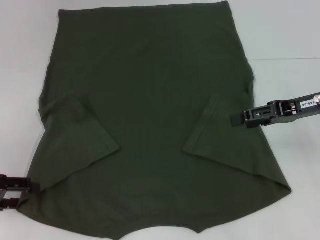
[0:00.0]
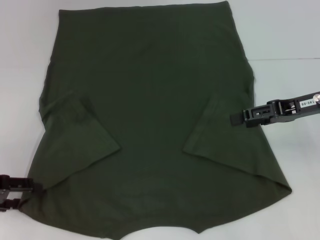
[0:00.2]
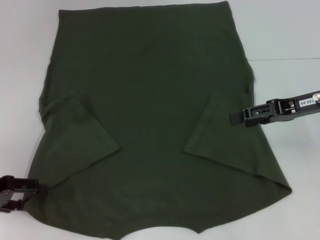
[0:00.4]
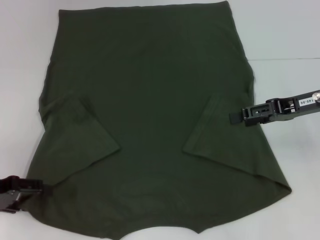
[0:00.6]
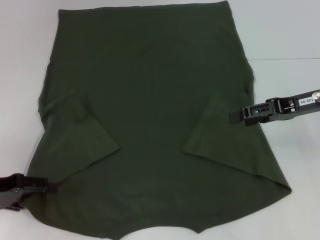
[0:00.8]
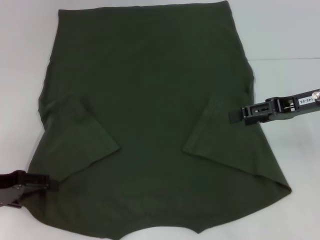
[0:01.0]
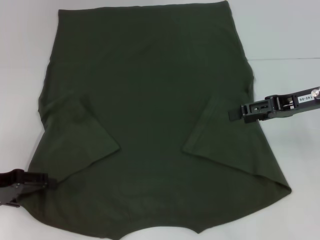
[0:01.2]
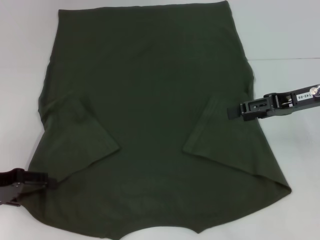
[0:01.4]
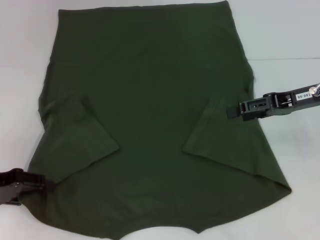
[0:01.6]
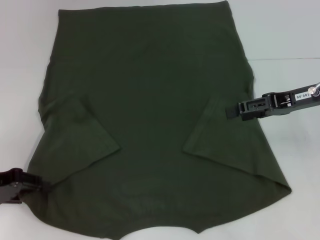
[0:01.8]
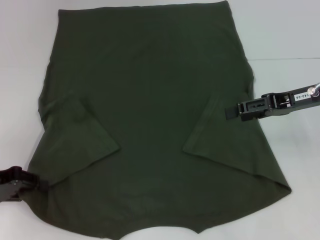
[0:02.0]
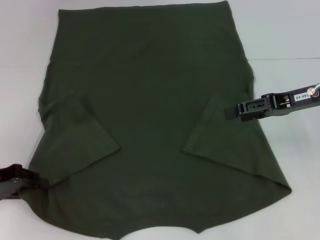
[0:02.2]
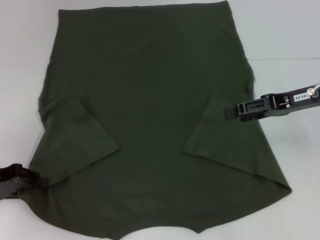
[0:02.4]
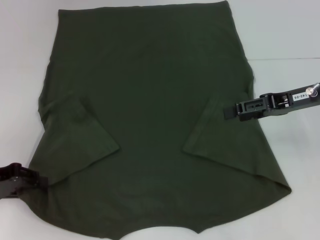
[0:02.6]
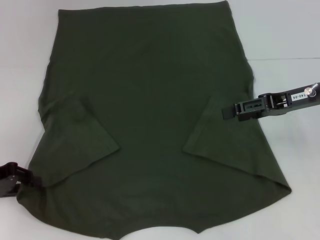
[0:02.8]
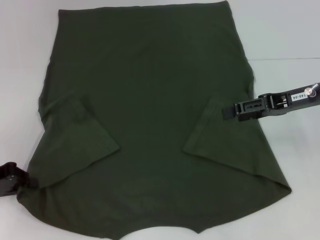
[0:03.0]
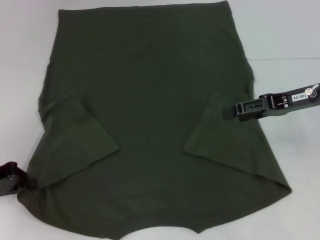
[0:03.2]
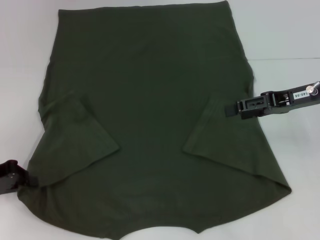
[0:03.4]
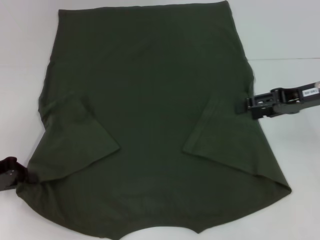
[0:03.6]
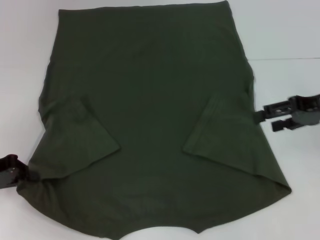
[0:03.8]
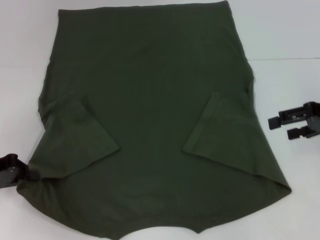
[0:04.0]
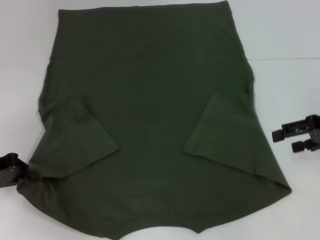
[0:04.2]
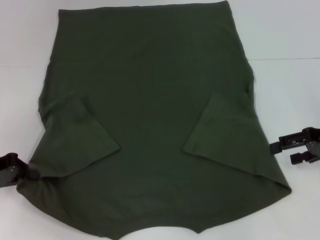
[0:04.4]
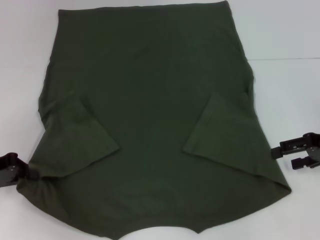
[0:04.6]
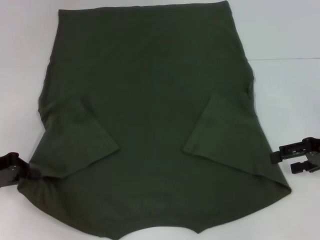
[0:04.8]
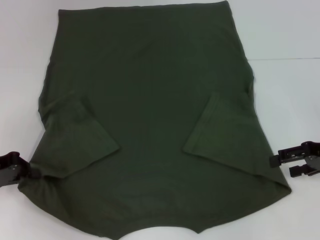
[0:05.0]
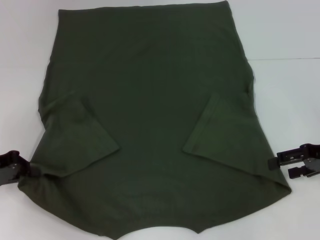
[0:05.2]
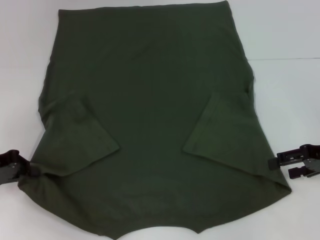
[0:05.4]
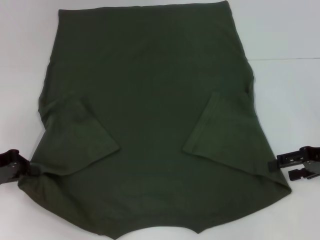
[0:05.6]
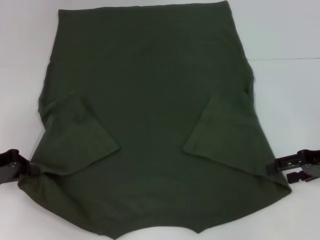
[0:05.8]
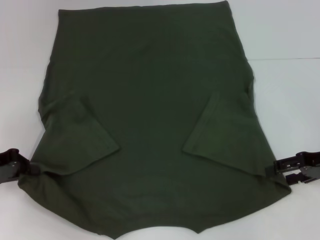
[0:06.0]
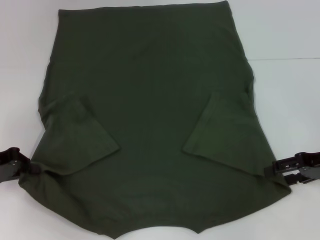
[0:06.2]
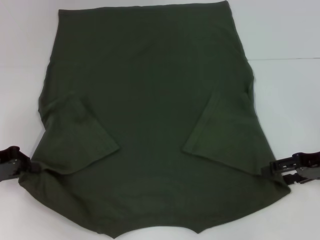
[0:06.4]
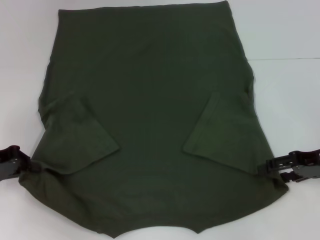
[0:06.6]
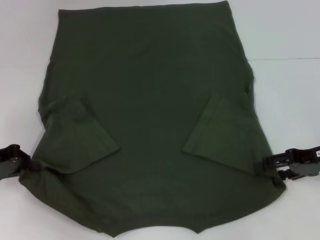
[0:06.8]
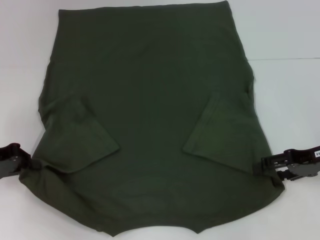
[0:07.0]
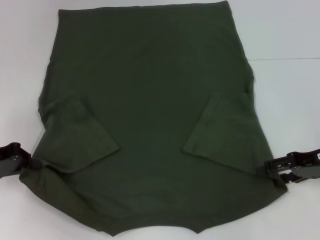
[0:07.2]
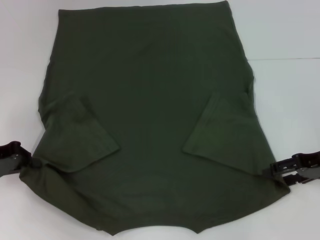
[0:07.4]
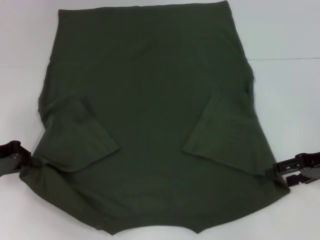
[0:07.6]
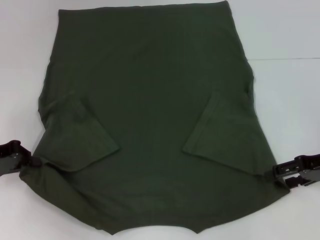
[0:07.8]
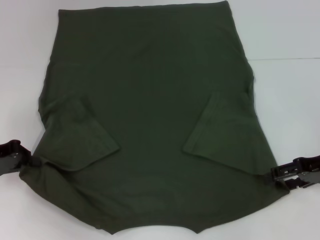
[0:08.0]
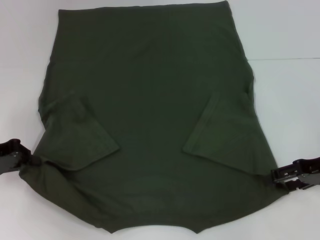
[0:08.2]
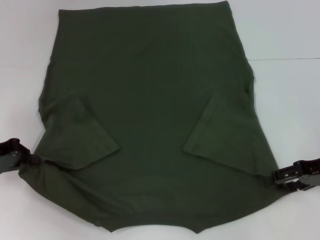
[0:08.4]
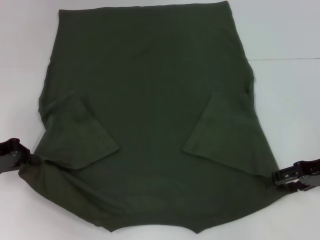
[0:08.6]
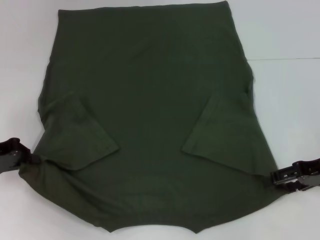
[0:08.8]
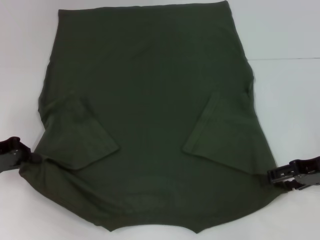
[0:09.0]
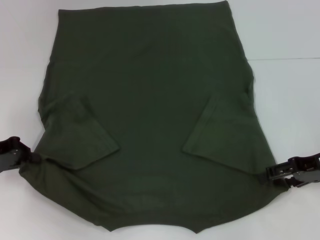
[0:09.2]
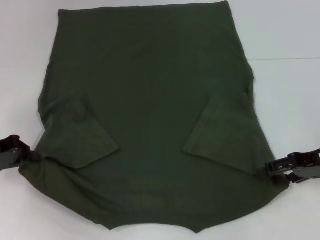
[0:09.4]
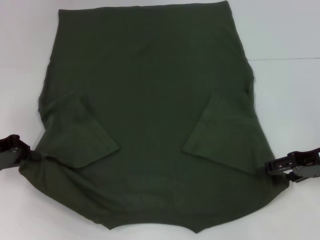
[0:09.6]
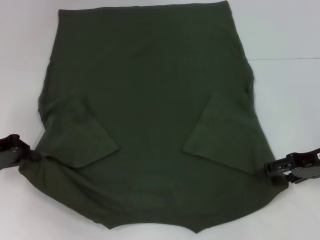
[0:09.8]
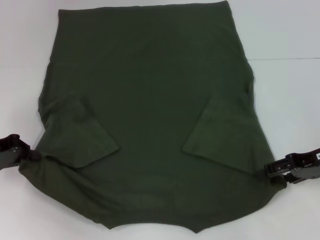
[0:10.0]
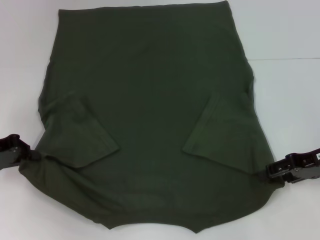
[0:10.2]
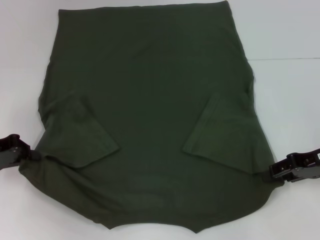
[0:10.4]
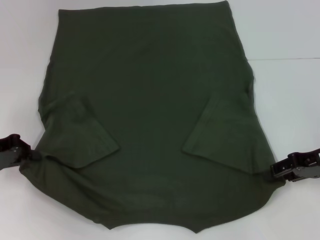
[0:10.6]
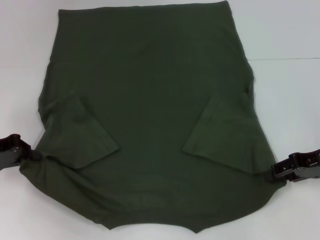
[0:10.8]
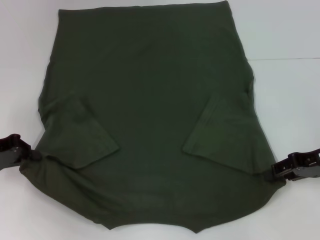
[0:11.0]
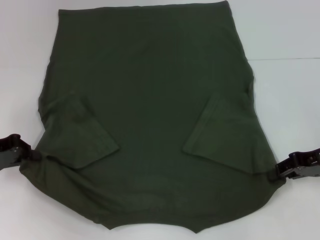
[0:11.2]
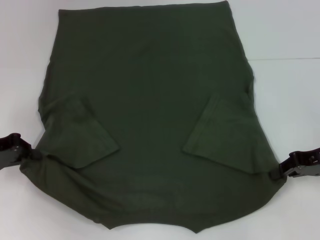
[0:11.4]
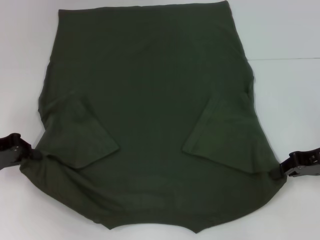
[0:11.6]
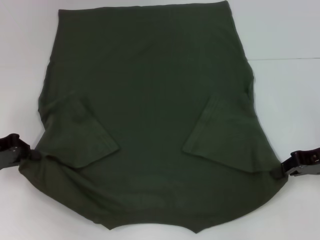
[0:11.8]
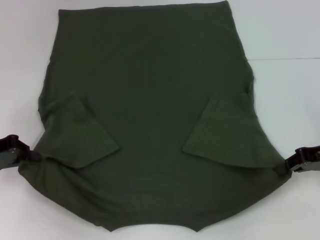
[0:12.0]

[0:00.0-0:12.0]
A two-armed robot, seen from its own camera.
Step, 0:00.0 to 0:05.0: Grab the bottom left corner with your left hand.
0:00.0 to 0:01.6: The grippers move only a little.
0:01.6 to 0:03.0: The left gripper closes up.
0:03.0 to 0:04.4: The right gripper is displaced to the right by some 5 cm.
0:04.4 to 0:07.6: The grippers move only a little.
0:07.6 to 0:09.0: The two grippers keep their place.
0:09.0 to 0:10.4: Both grippers stay put.
0:10.4 to 0:12.0: The right gripper closes.

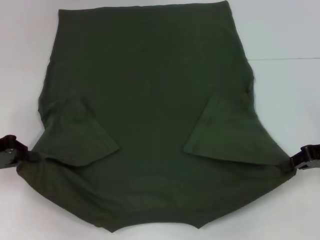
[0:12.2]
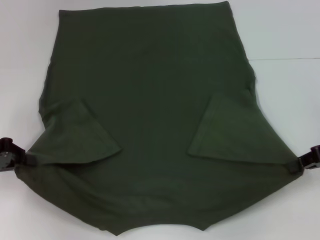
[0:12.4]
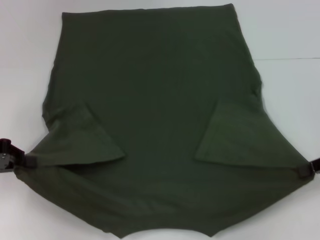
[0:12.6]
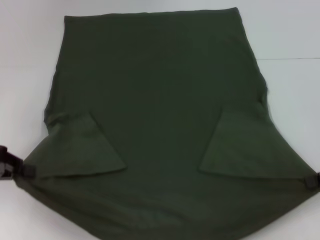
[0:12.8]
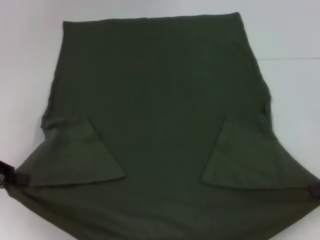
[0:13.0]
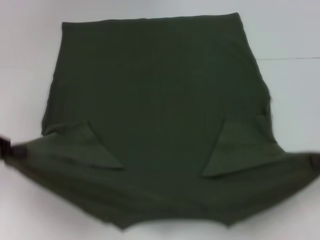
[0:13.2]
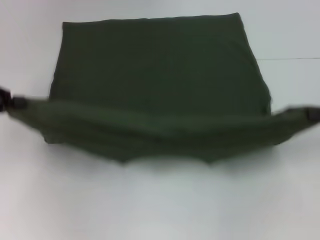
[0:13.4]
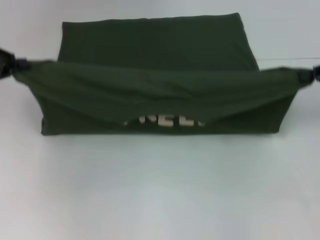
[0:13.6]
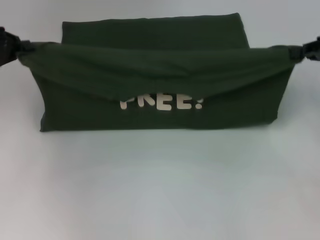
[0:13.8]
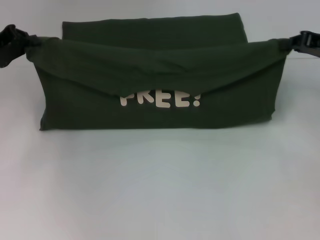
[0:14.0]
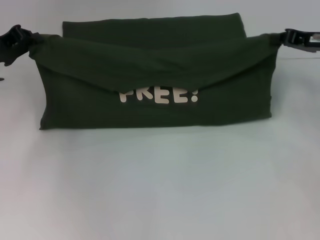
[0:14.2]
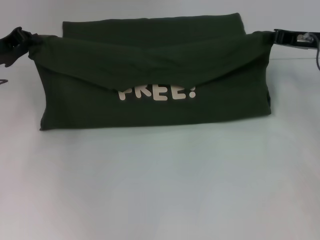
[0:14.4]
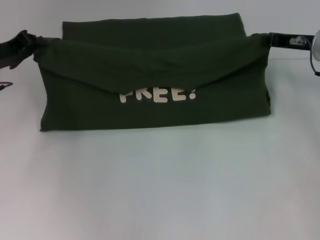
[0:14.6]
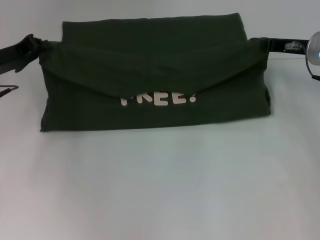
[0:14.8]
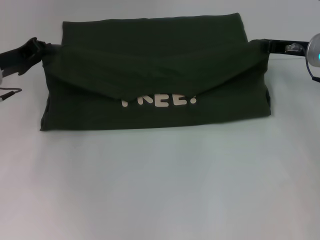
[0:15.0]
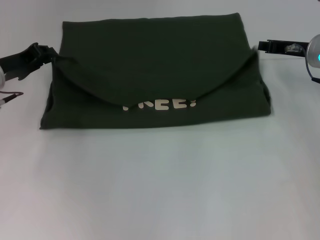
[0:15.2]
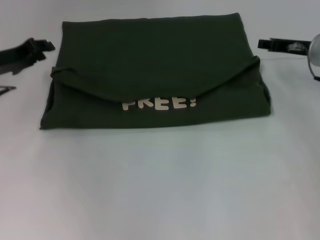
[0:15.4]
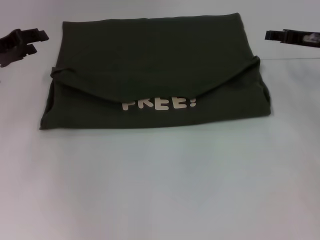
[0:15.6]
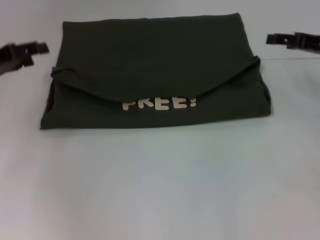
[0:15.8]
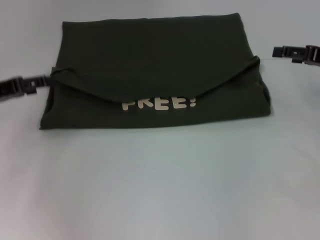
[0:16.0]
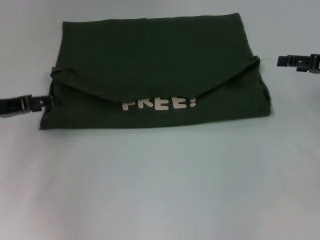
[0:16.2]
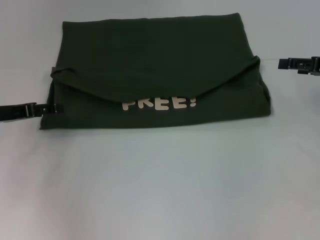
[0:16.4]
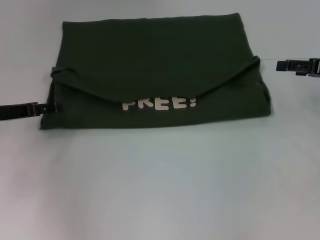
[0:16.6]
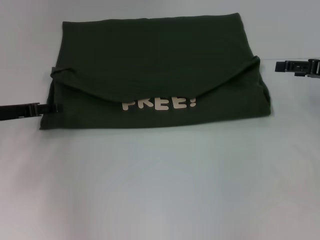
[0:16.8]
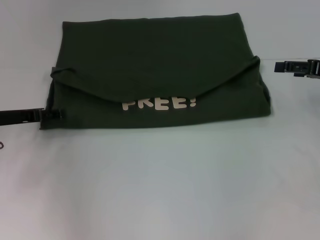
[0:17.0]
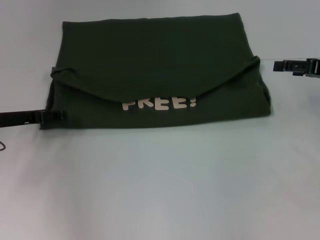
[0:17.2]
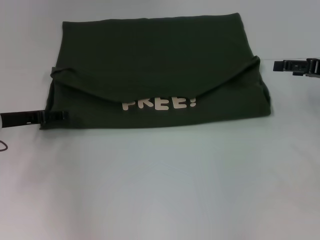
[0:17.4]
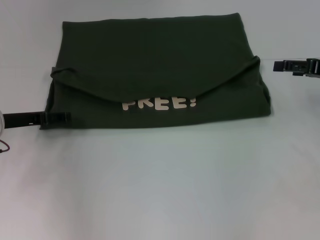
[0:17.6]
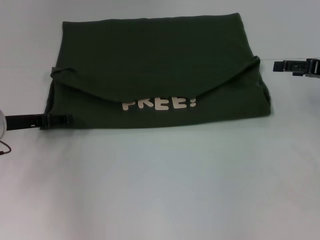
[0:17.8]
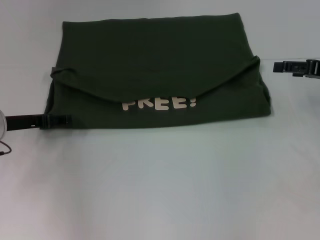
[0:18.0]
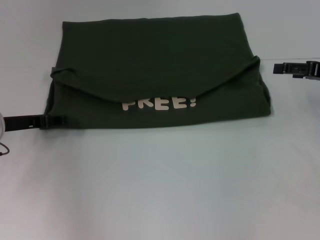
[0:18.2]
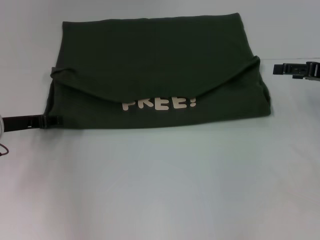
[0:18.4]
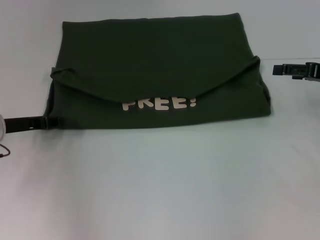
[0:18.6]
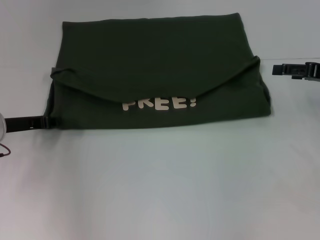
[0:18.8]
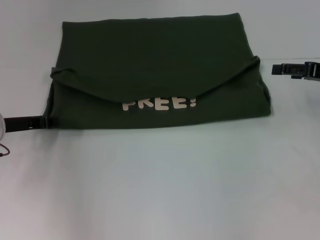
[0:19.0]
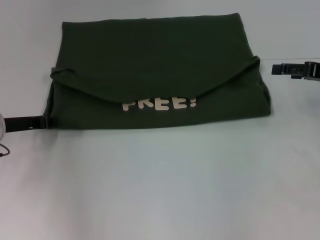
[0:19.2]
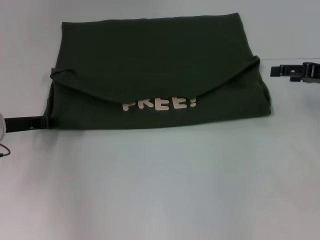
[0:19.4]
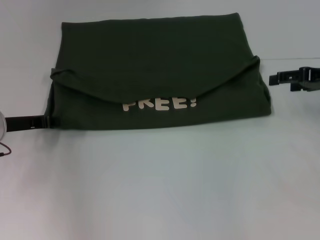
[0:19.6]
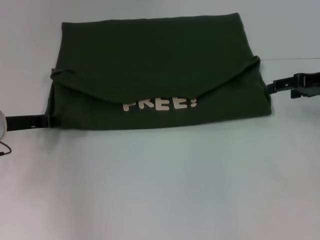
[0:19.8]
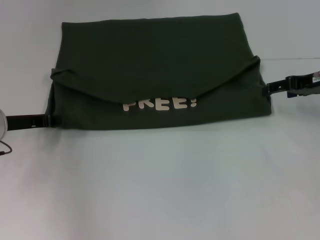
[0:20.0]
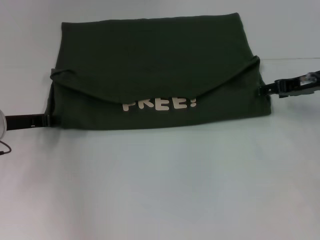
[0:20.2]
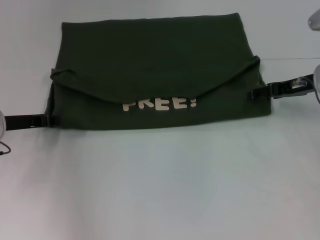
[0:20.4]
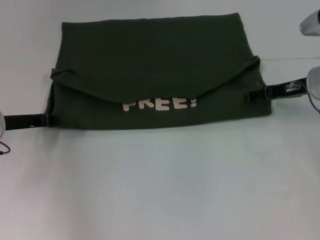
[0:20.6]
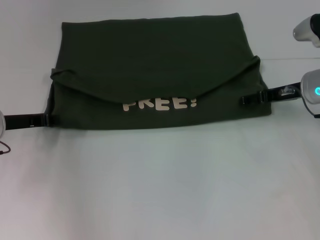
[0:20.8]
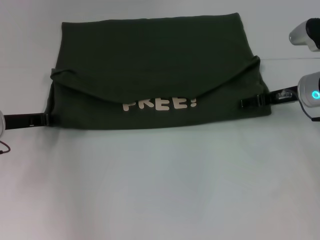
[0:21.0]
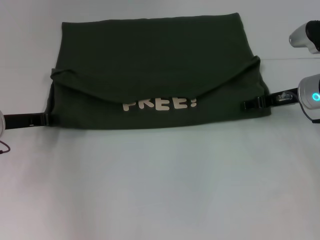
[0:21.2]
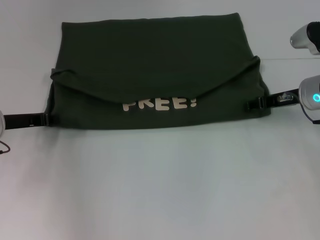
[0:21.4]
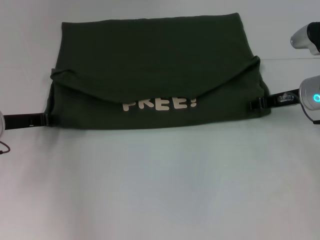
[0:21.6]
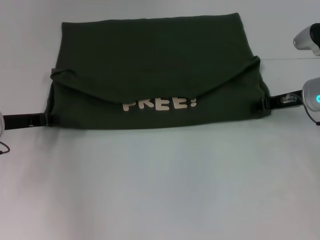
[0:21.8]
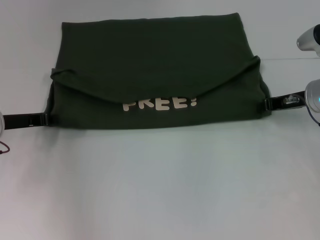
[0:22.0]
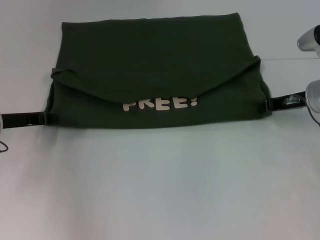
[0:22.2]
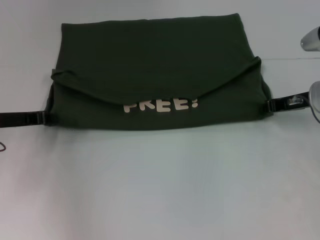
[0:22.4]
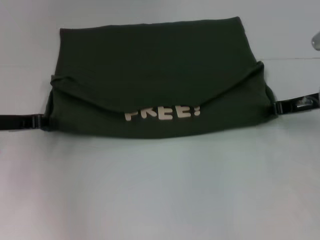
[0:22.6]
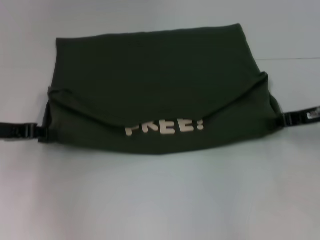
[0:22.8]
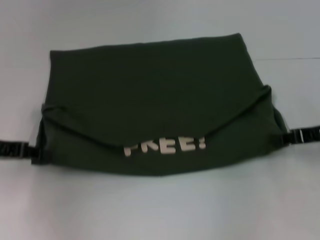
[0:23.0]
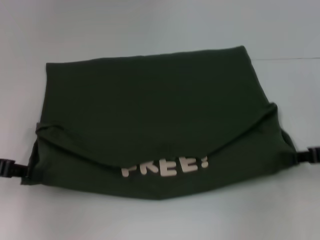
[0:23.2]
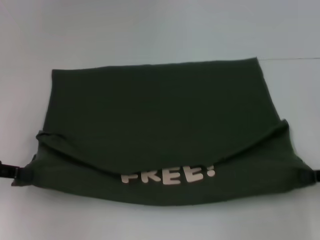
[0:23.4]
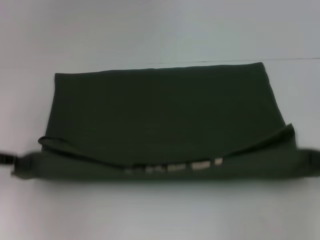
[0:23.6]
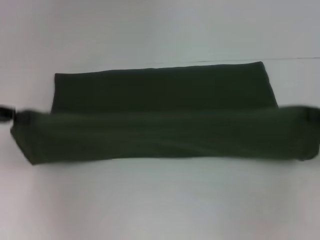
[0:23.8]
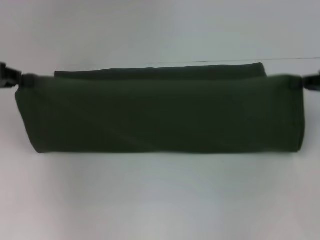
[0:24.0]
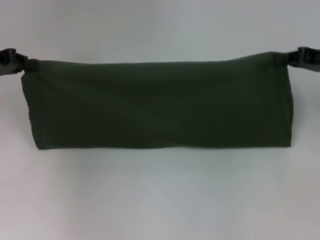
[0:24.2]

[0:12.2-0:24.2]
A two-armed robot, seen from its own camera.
Step, 0:12.2 to 0:15.0: Fold the clothes with your left hand.
Step, 0:12.2 to 0:15.0: Fold the clothes with your right hand.
Step, 0:15.2 to 0:23.2: Pull the clothes with your left hand.
Step, 0:15.2 to 0:23.2: Pull the clothes with your right hand.
0:12.2 to 0:13.8: The right gripper travels upward and forward by some 10 cm; the left gripper goes some 10 cm forward and upward.
0:13.8 to 0:15.2: The left gripper is displaced downward and to the right by approximately 10 cm. The right gripper moves to the left and downward, roughly 10 cm.
0:15.2 to 0:16.6: The right gripper moves to the right and backward, approximately 10 cm, and opens up, while the left gripper changes place by approximately 5 cm, and opens.
0:16.6 to 0:18.2: The grippers make only small movements.
0:18.2 to 0:19.8: The left gripper closes its fingers.
0:19.8 to 0:21.2: The right gripper travels to the left and downward by about 10 cm.
0:21.2 to 0:22.6: The right gripper closes its fingers.
0:22.6 to 0:24.2: The right gripper heads upward, covering roughly 5 cm, and reaches approximately 15 cm backward, then returns. The left gripper shifts some 10 cm upward, and goes backward and returns, approximately 5 cm each way.
